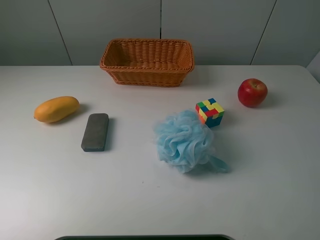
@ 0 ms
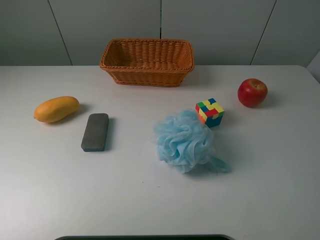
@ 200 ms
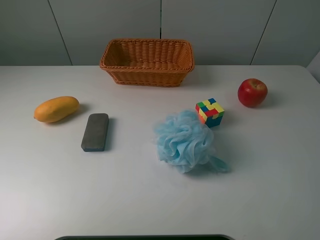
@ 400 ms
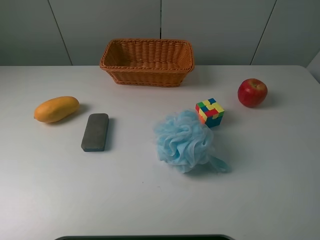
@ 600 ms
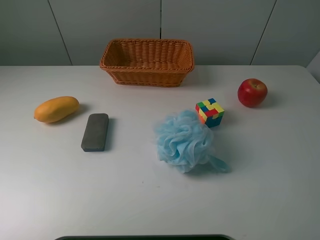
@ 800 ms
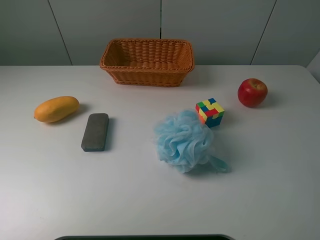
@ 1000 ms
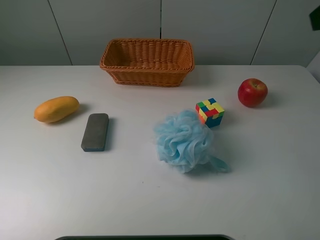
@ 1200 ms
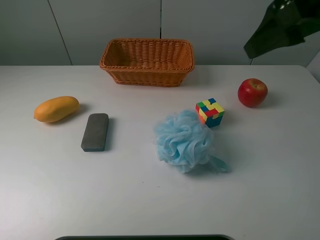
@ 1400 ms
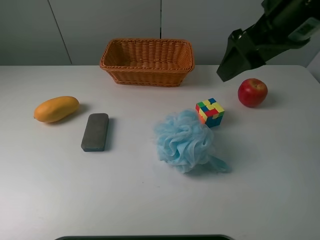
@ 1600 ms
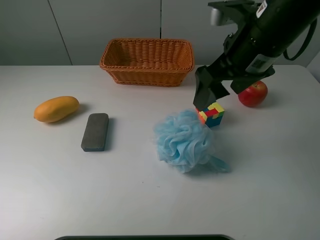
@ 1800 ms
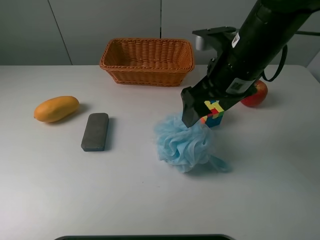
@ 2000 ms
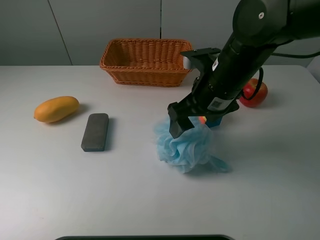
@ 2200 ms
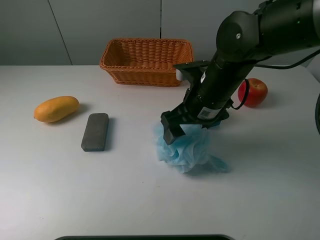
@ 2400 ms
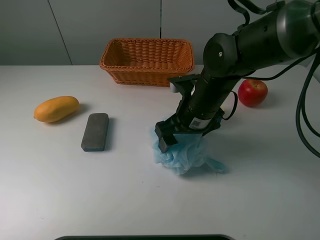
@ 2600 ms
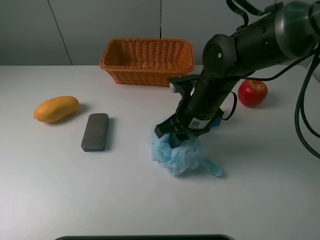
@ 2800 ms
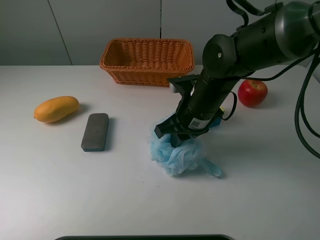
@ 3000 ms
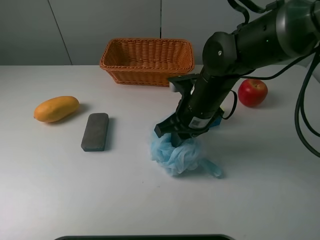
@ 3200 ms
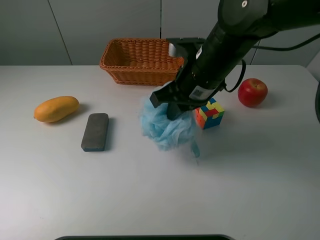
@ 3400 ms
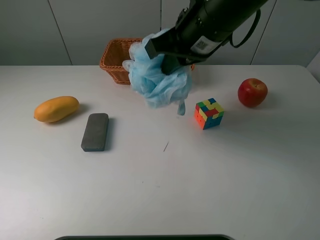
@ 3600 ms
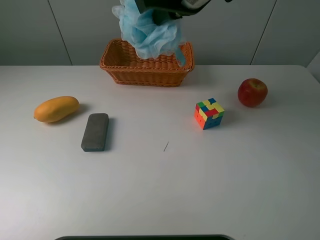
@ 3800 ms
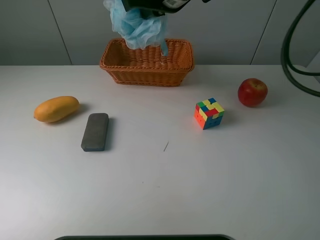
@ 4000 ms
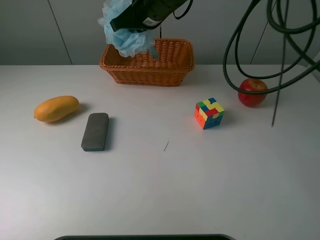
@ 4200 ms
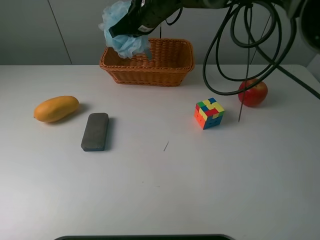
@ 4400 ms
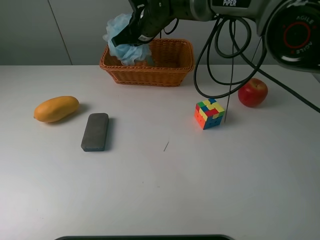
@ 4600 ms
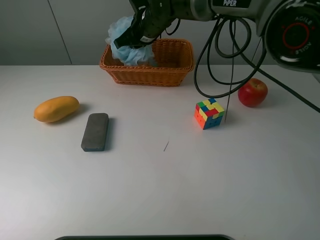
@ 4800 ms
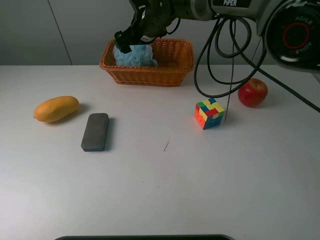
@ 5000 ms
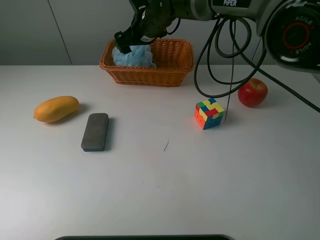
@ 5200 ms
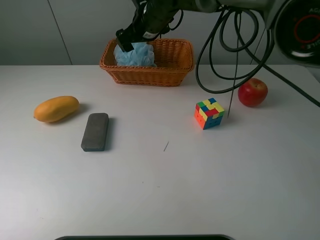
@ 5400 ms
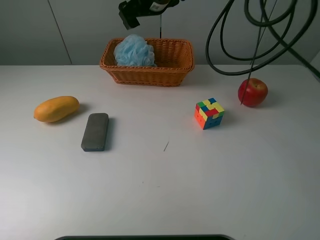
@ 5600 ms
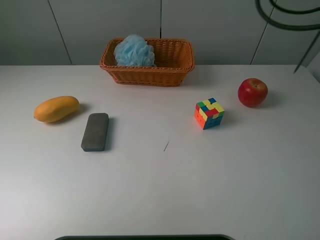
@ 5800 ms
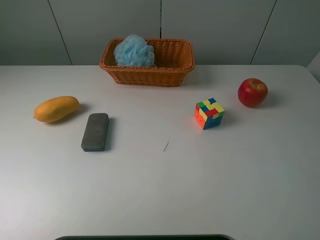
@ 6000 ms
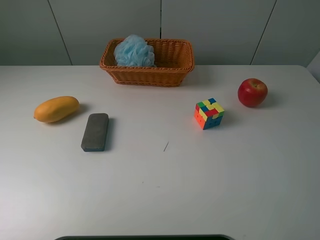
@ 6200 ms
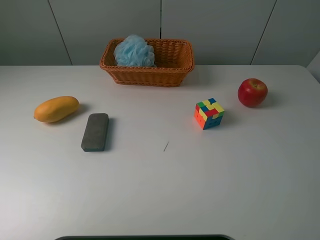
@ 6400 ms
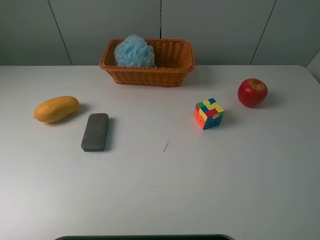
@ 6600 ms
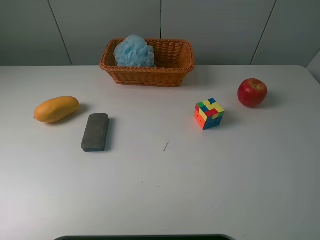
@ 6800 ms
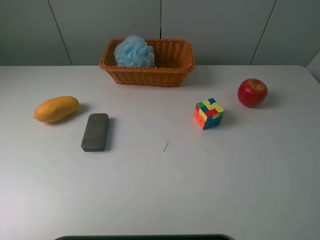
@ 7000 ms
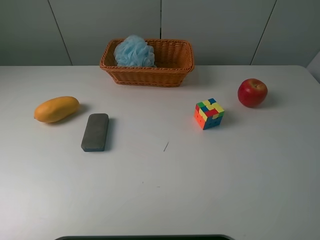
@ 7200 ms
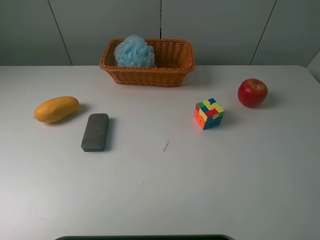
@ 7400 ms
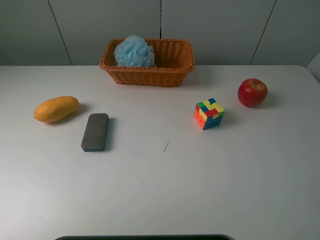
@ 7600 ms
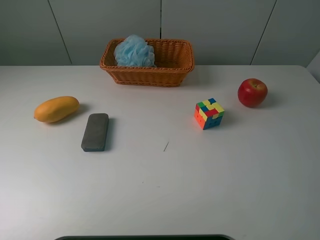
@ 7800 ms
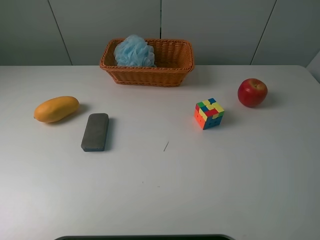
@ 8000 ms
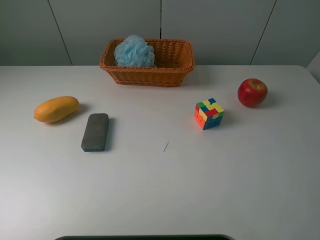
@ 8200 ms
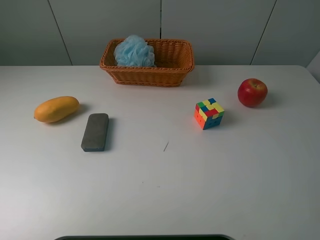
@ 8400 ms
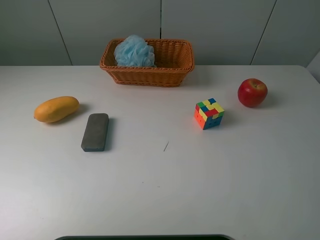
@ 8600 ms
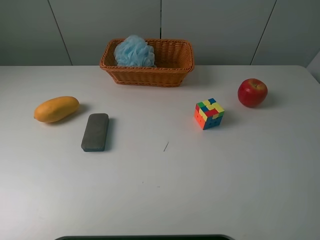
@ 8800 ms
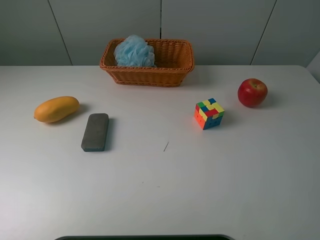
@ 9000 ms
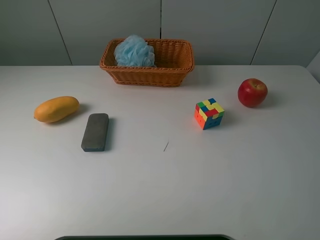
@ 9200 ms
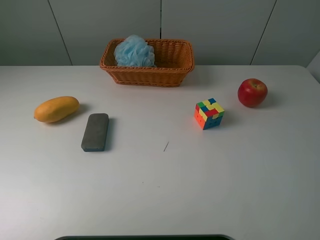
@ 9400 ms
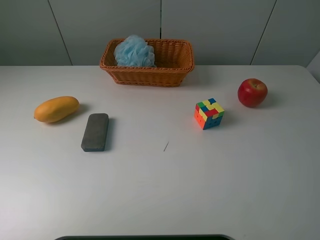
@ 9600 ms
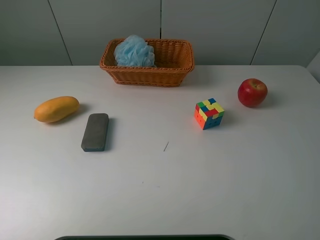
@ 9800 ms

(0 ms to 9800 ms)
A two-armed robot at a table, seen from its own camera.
Task of the whole recording: use a picker to grab the item closest to the cube and place it in the basket.
Step, 0 ms - 3000 ms: Grasp the Shower puff with the right gripper.
Step, 3200 ms - 5400 ms: Place the Shower puff into the basket with the right gripper.
0 ms - 1400 ms: The right gripper moves forward, some 25 cm.
1400 ms - 2800 ms: The right gripper goes some 25 cm downward and to the left, and closes.
2800 ms - 4200 ms: The right gripper shifts approximately 20 cm forward, upward and to the left.
4200 ms - 5600 ms: The right gripper changes place by roughly 5 cm, and opens.
5600 ms - 7000 ms: The right gripper goes some 60 cm backward, to the right and upward.
